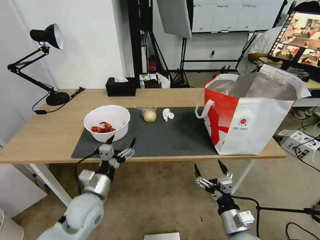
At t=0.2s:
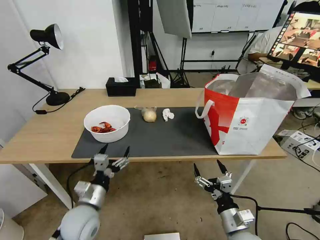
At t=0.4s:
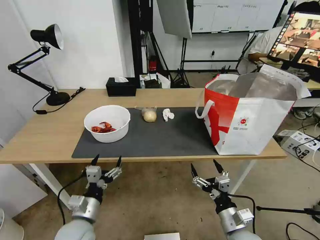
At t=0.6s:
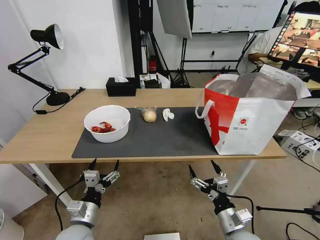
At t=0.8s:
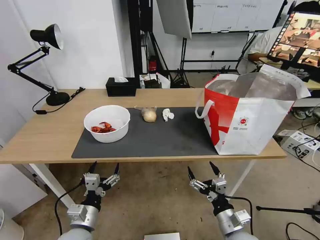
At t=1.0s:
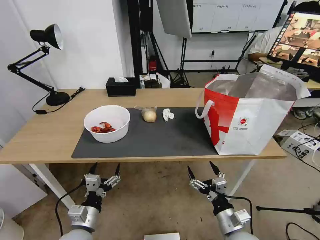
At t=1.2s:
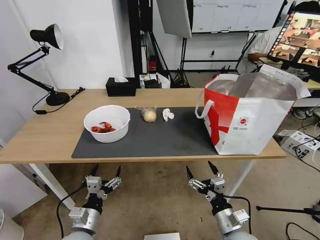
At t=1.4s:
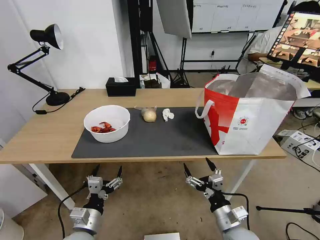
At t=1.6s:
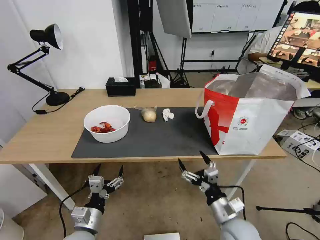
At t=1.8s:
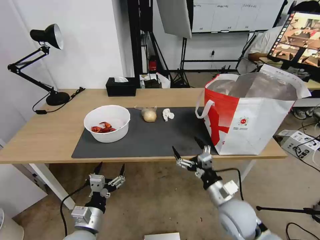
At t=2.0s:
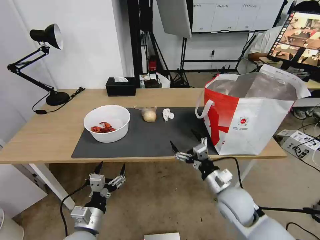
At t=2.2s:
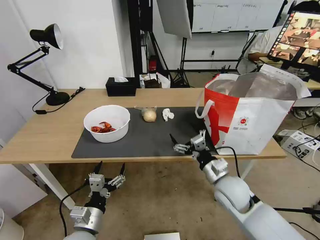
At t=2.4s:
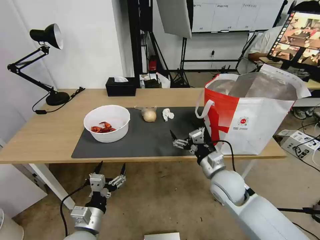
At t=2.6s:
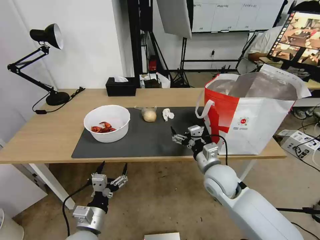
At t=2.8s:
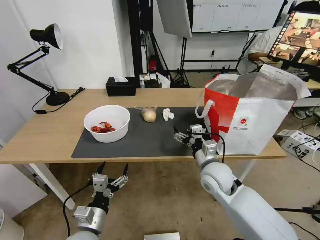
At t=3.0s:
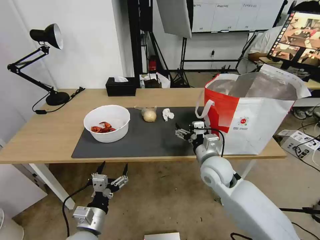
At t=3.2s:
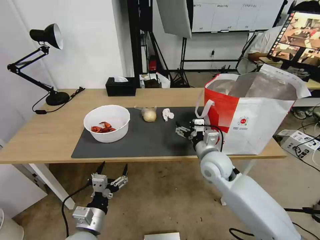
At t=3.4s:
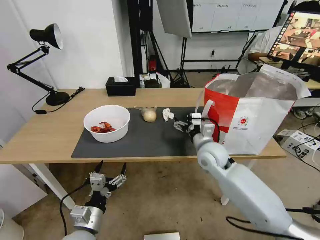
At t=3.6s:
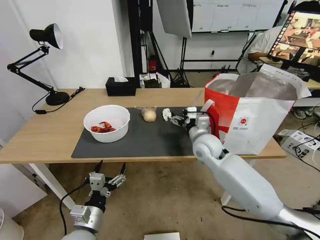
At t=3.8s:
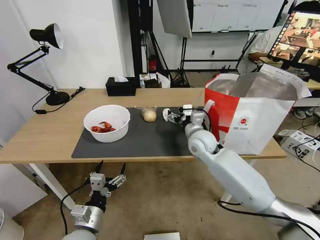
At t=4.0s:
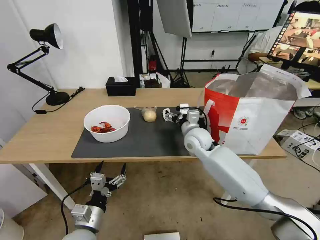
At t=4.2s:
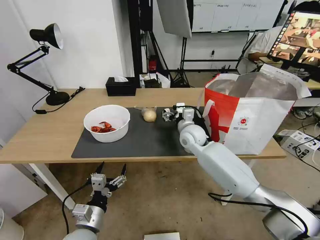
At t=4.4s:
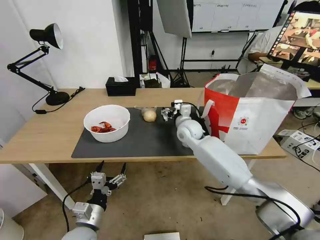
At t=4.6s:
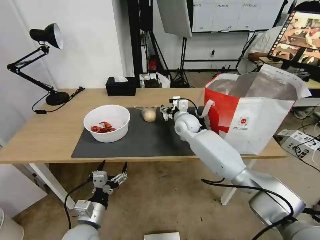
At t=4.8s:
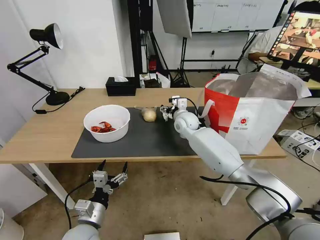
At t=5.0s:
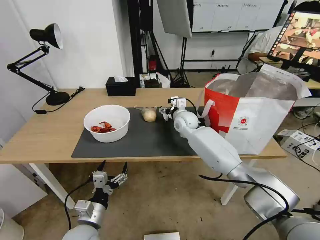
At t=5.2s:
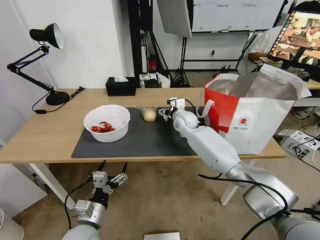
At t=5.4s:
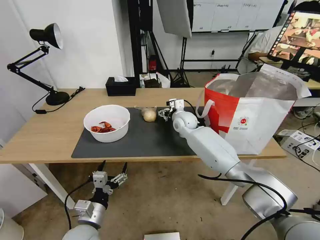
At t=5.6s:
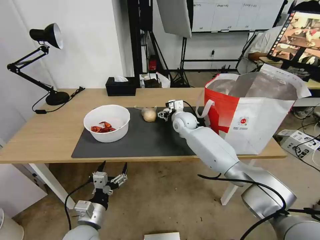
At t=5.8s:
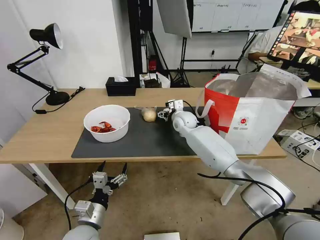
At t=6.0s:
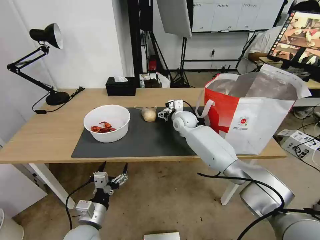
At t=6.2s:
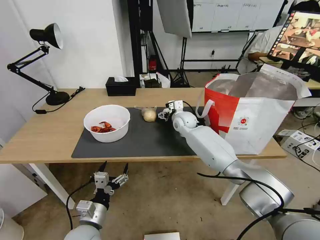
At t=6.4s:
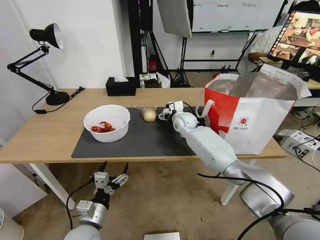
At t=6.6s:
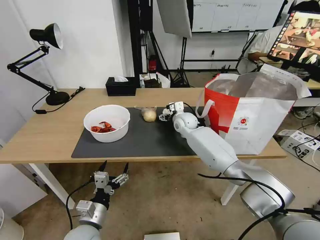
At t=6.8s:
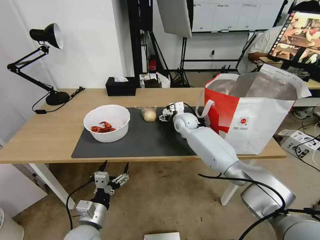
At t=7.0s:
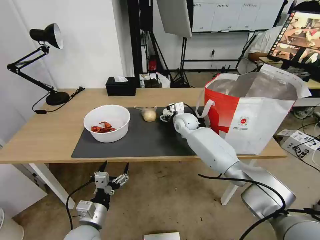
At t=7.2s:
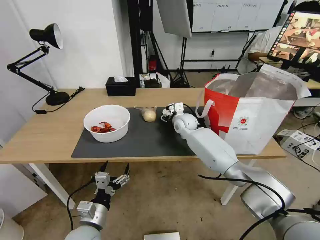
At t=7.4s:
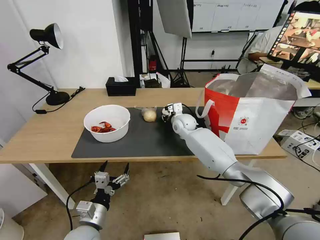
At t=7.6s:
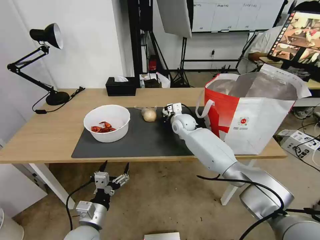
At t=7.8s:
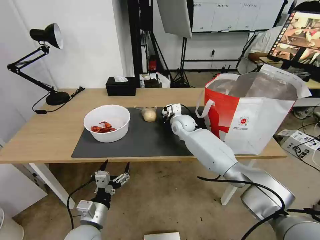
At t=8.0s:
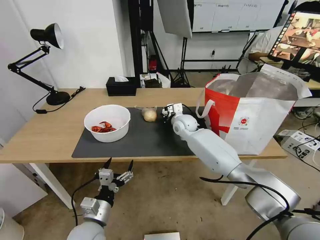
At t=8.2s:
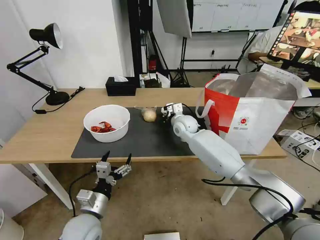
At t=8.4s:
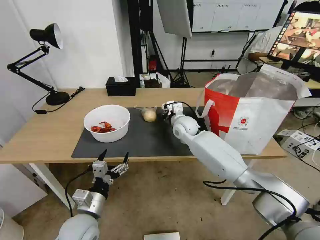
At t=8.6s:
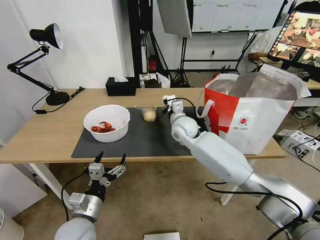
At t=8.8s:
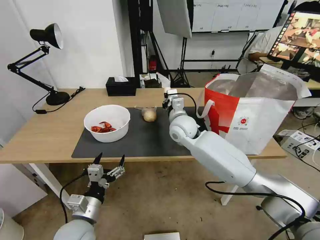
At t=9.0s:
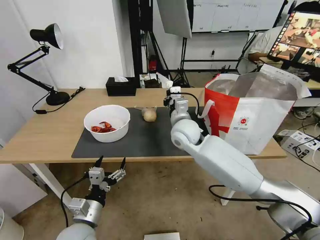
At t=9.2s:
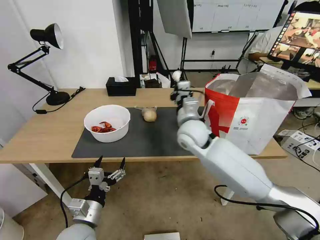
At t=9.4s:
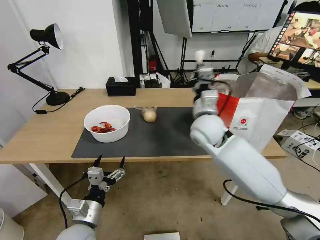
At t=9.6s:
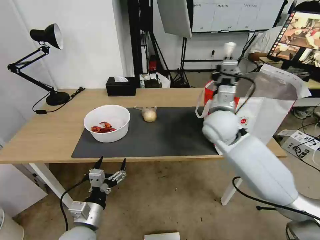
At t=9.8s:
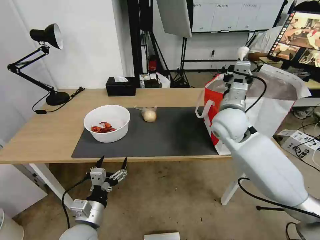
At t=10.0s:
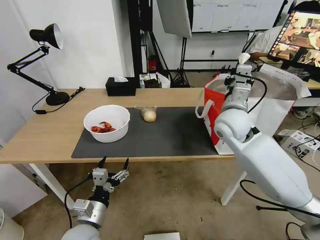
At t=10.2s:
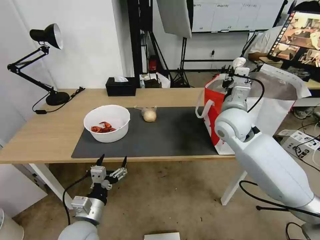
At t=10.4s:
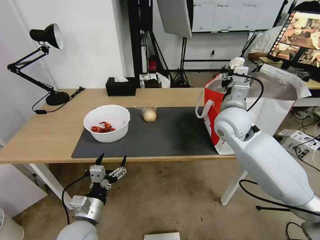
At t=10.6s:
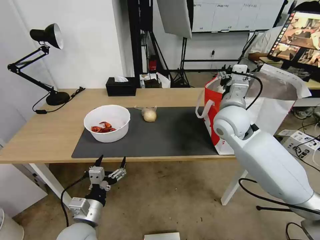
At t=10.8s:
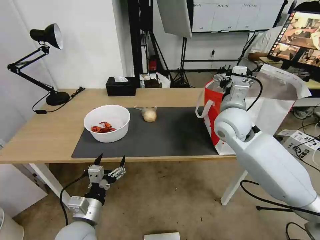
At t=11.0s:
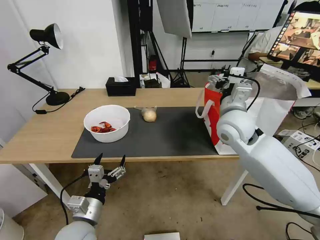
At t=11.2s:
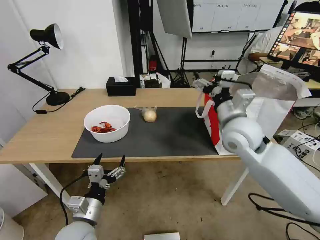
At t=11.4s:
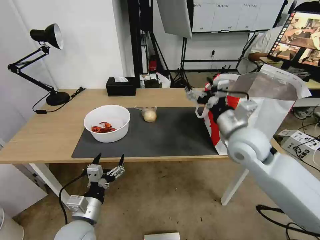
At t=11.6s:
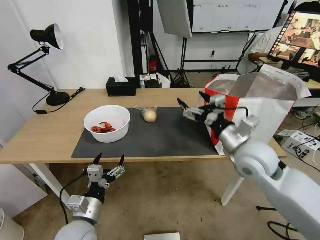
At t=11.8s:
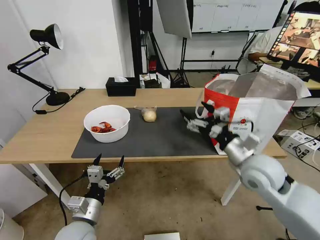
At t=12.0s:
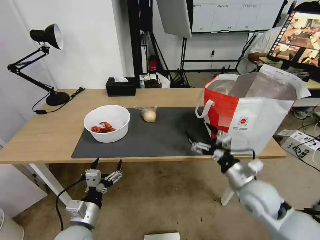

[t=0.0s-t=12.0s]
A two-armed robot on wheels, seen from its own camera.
Task of the whole recording: Pick up the trash from the table and place it into the takeout bag.
t=0.0s to t=1.6s: The left gripper travels backward and downward by approximately 10 cm.
t=1.6s to t=3.0s: The right gripper is displaced forward and upward by about 15 cm.
t=3.0s to t=4.4s: The right gripper travels forward by some 20 cm.
t=4.4s to t=6.0s: The right gripper is displaced forward by some 5 cm.
t=6.0s to t=7.6s: The right gripper closes.
t=7.6s to t=9.0s: The right gripper goes some 15 cm backward and upward.
t=9.0s to t=10.4s: The right gripper goes approximately 15 cm to the right and upward, and opens.
t=10.4s to t=12.0s: The right gripper heads backward, downward and to the right, covering about 20 cm, and opens its fingers.

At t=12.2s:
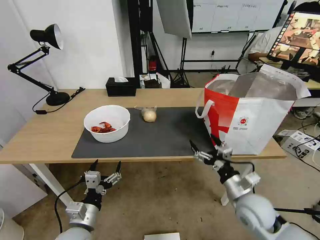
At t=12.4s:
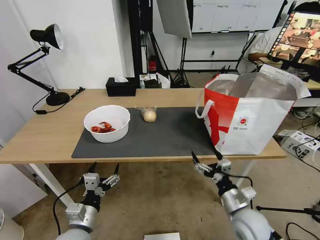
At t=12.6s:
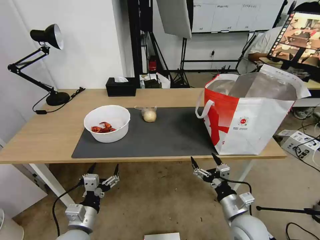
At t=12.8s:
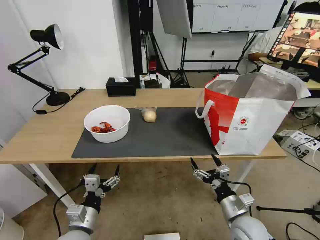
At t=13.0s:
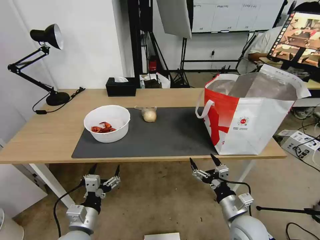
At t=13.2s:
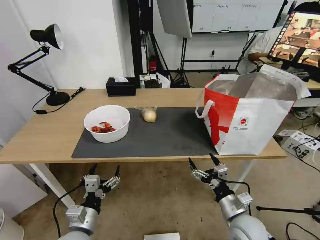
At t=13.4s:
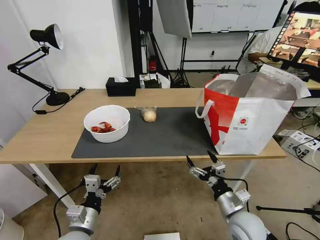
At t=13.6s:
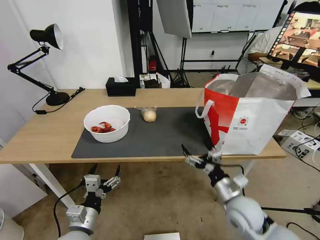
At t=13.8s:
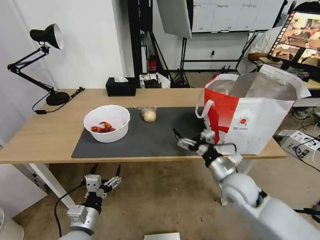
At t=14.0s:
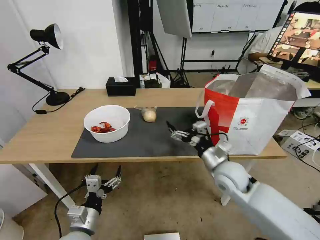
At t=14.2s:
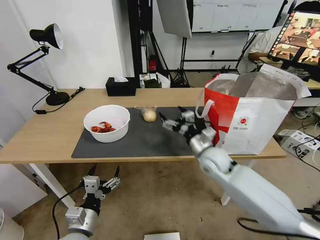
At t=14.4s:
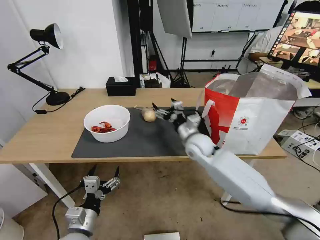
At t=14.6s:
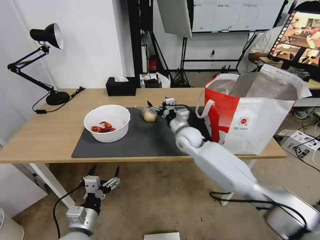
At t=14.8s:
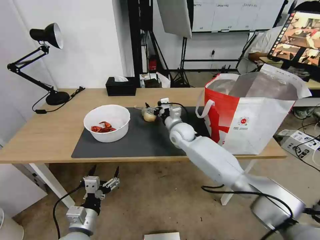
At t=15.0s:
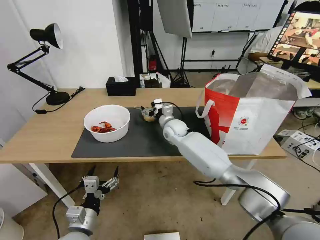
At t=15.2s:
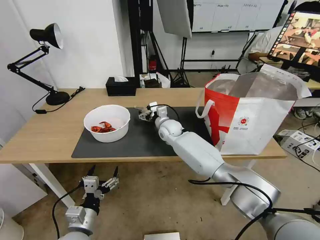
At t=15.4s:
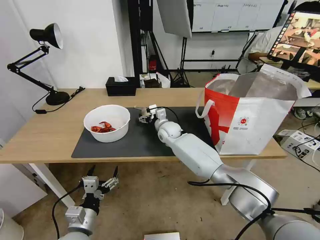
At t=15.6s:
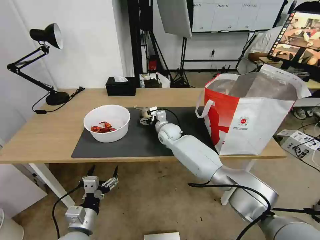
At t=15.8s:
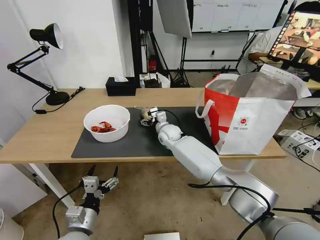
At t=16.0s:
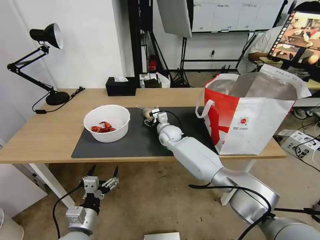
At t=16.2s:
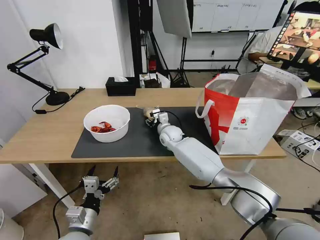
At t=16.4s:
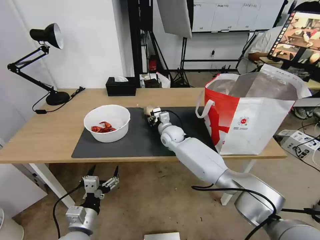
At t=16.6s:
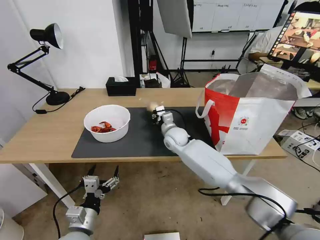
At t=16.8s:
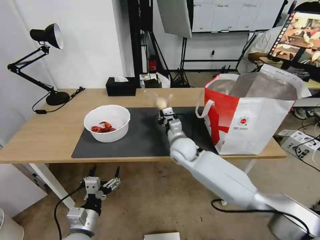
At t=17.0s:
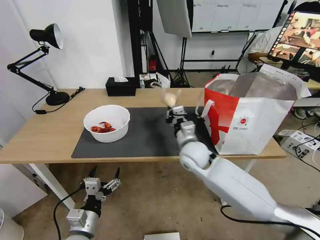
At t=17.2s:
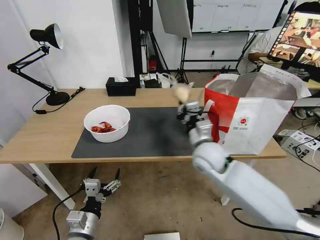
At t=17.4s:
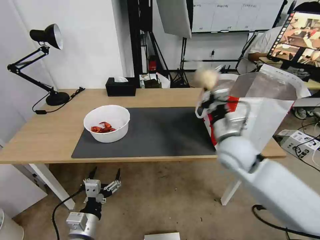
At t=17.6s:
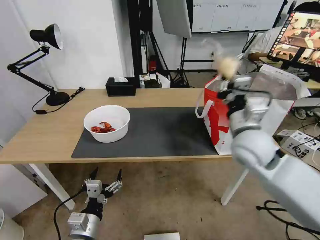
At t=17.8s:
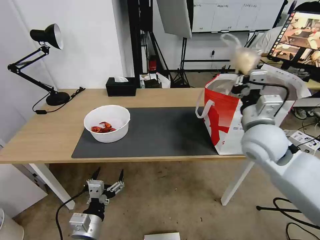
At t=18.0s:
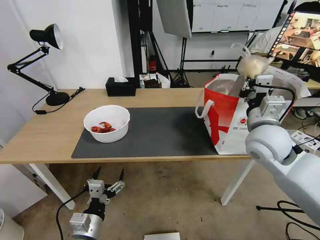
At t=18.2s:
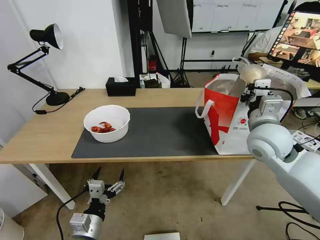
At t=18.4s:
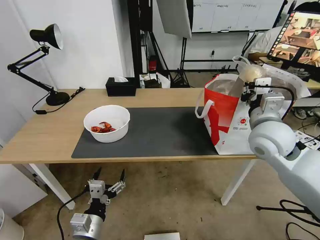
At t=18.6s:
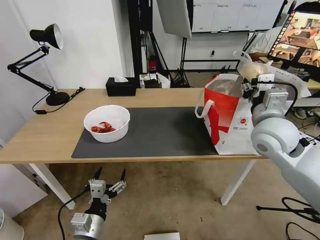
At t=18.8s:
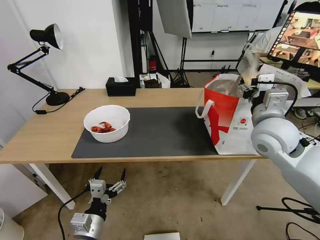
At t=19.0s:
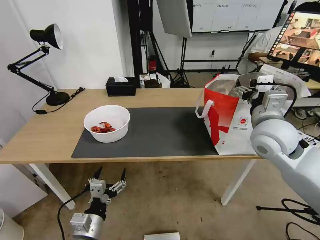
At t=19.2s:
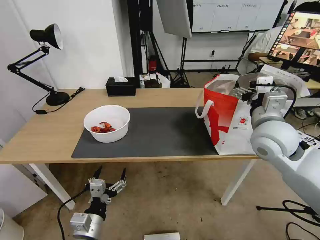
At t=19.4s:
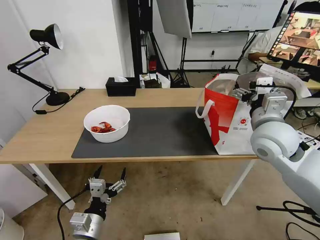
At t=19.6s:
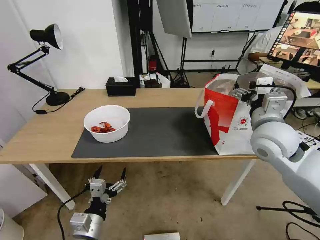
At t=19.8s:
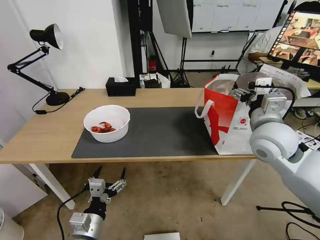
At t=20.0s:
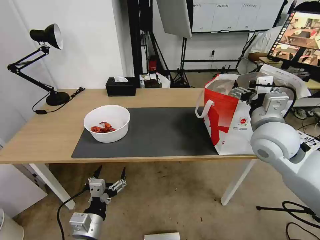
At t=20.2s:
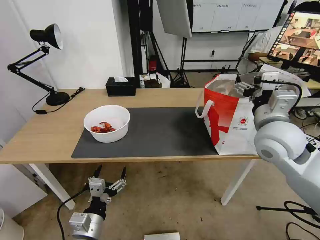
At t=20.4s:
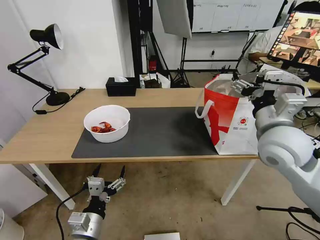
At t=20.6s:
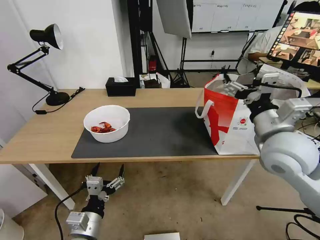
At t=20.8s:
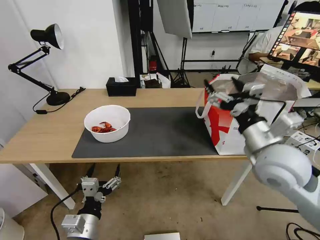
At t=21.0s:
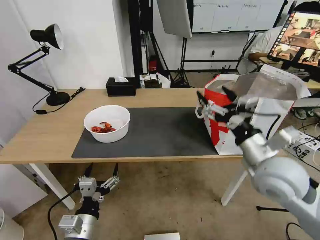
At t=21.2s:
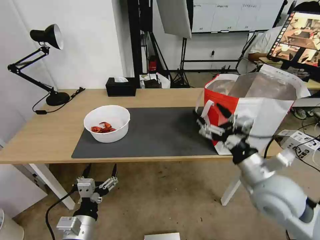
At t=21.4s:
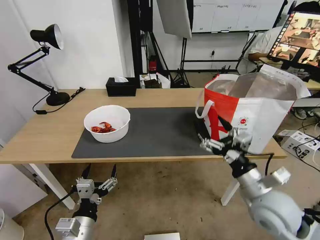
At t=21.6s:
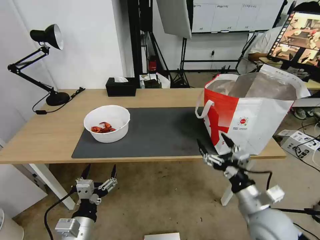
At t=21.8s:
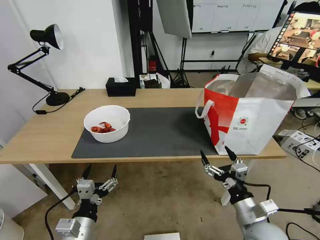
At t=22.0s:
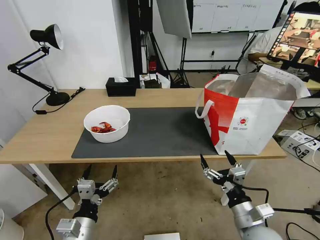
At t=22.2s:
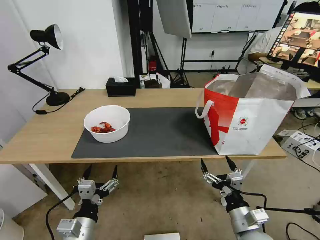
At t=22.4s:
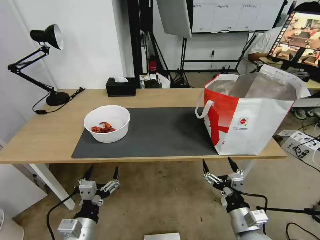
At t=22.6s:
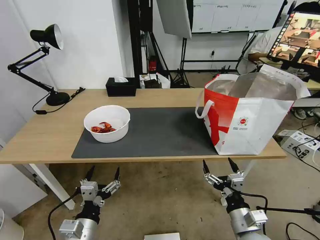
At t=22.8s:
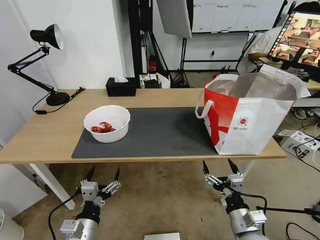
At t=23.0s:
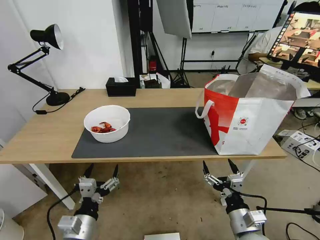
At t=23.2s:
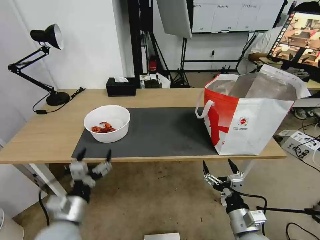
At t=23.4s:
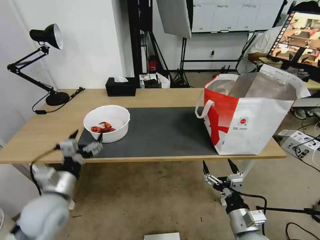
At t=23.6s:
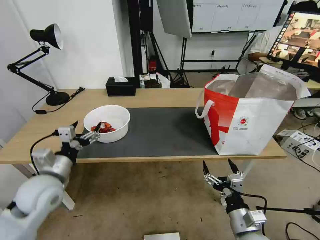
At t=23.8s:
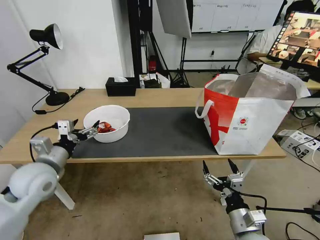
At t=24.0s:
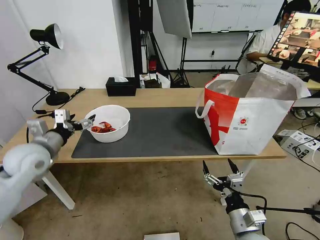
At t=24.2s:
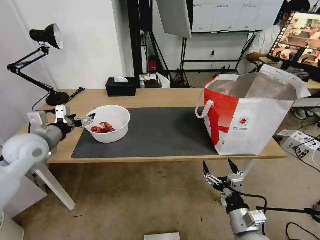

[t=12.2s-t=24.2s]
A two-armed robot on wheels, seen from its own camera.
Task of the whole recording: Pick up the trash from the table and place it into the takeout bag.
t=12.2s to t=13.8s: The right gripper shifts by about 5 cm.
t=13.8s to t=15.2s: The right gripper heads forward and to the left, covering roughly 35 cm.
t=15.2s to t=16.6s: The right gripper closes.
t=16.6s to t=18.2s: The right gripper goes some 30 cm to the right, upward and backward.
t=18.2s to t=19.8s: The right gripper opens its fingers.
t=19.8s to t=21.2s: The right gripper moves backward and downward, approximately 15 cm.
t=21.2s to t=22.6s: The right gripper heads downward and backward, covering some 20 cm.
t=22.6s to t=24.2s: The left gripper moves forward, upward and to the left, about 35 cm.
